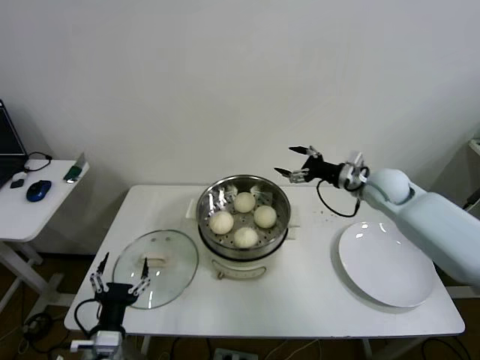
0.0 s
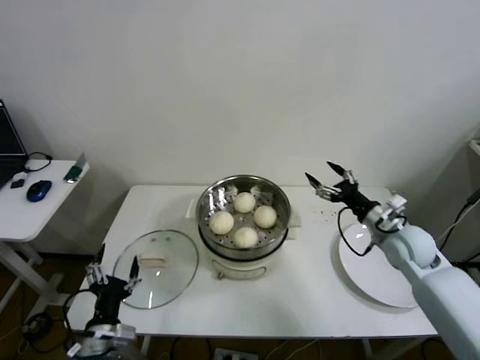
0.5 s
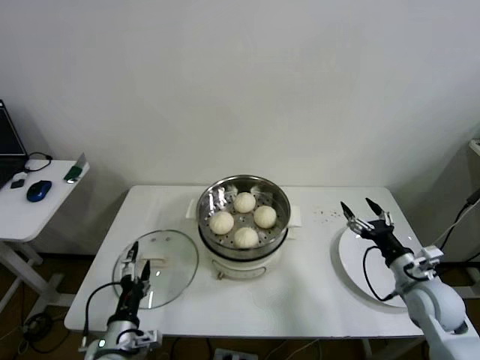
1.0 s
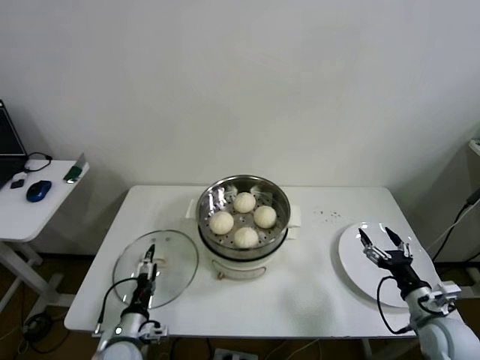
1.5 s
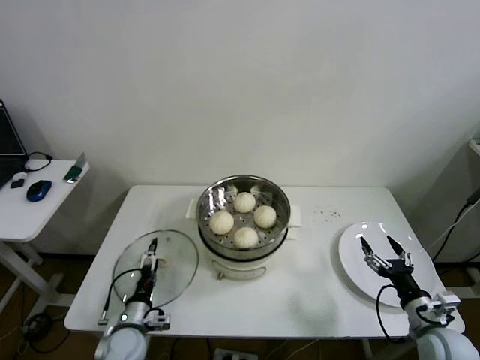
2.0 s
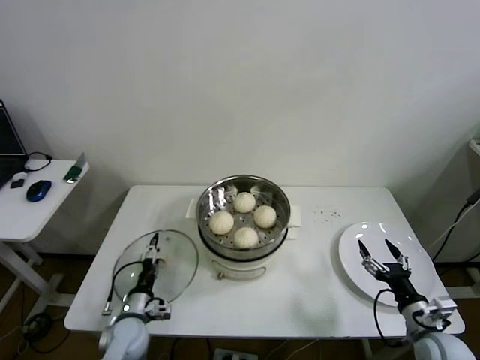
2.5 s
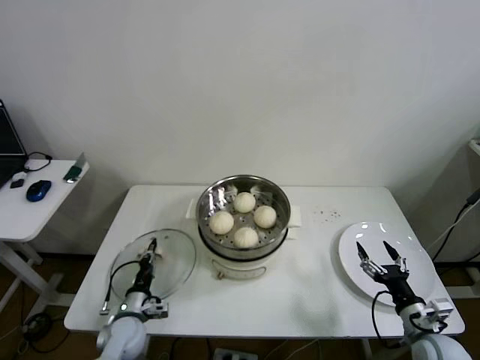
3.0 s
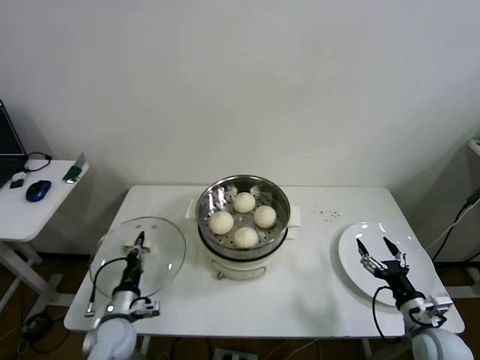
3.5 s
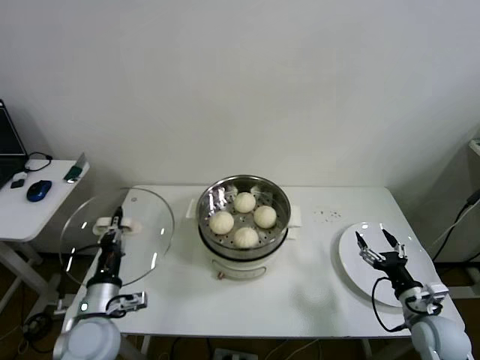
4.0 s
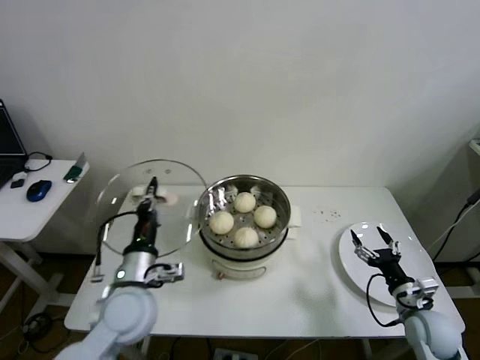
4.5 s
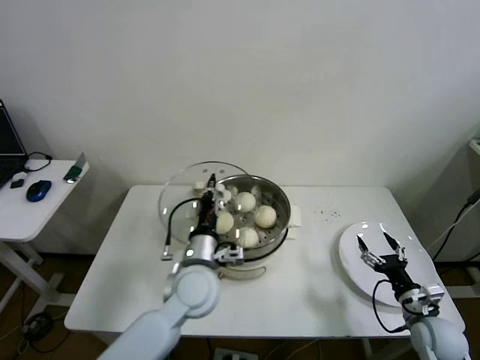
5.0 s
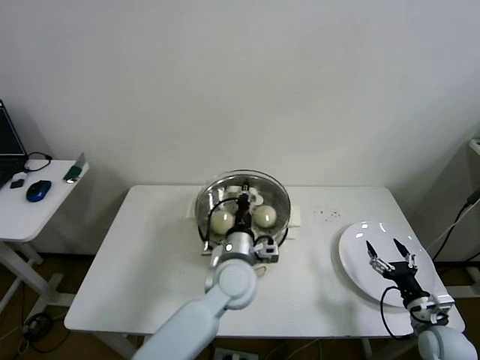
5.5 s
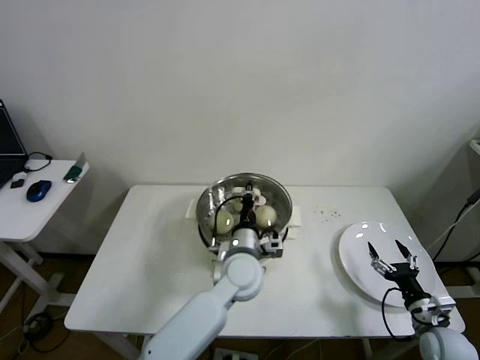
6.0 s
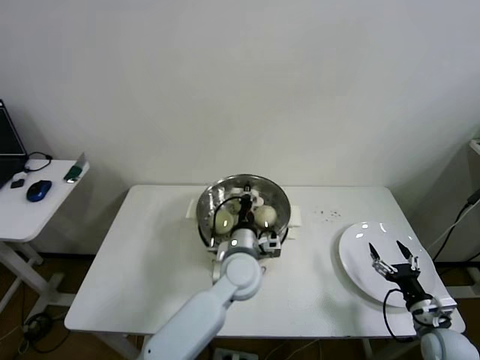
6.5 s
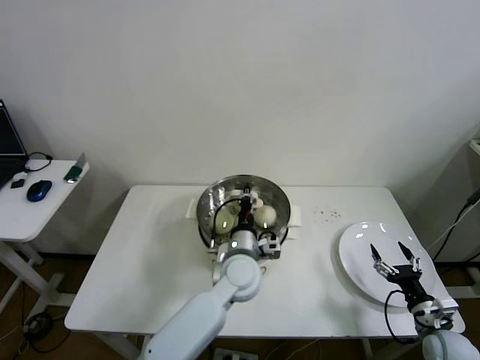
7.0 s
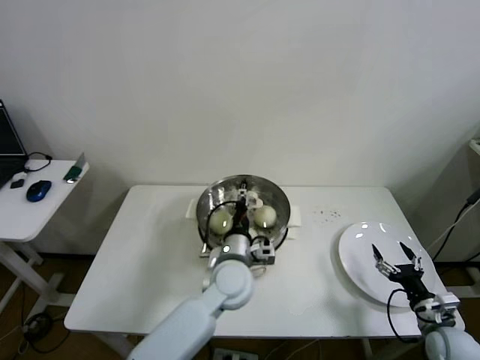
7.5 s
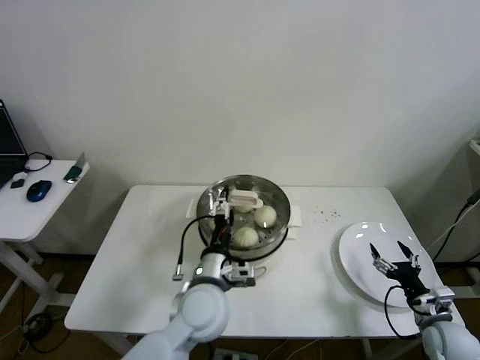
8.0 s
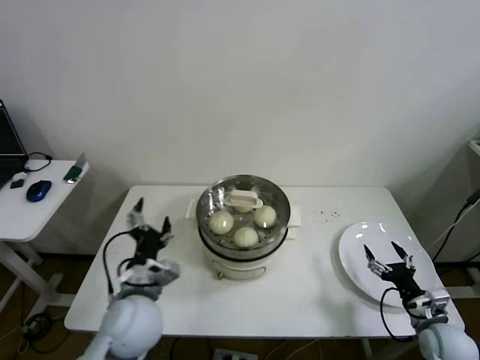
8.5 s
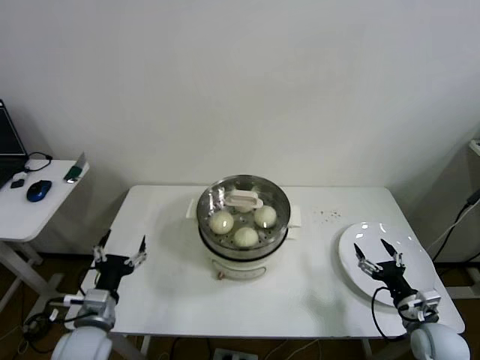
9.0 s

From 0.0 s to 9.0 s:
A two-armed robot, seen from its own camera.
Step, from 0.0 s to 3.0 s: Grasp the pot lid with left gripper.
Step, from 3.5 s to 7.5 s: Place the pot lid on the steamer with left gripper.
From 0.0 s to 2.0 s: The left gripper shifts about 15 cm downward and forward, while the right gripper moves backward and downward, roughly 35 cm.
From 2.0 s to 4.5 s: The left gripper moves upward, roughly 20 cm, and closes its fingers.
From 4.5 s to 7.0 s: The right gripper shifts by about 5 cm. Meanwhile the left gripper is displaced to the right and forward by about 25 cm.
From 7.0 s to 9.0 s: The left gripper travels to the left and backward by about 30 cm, and opens up.
